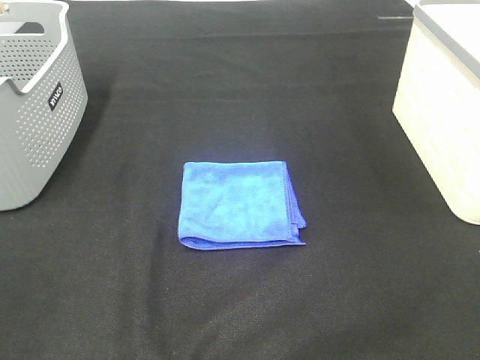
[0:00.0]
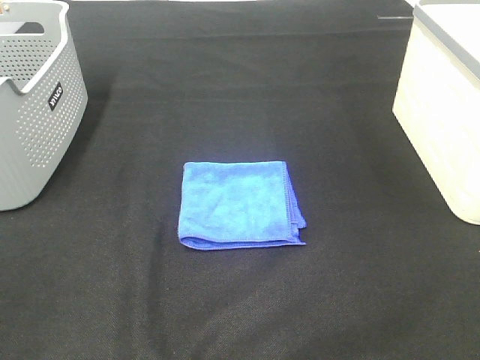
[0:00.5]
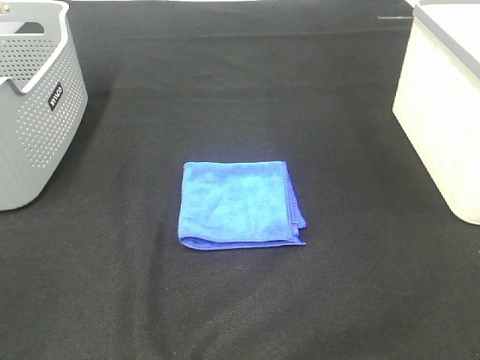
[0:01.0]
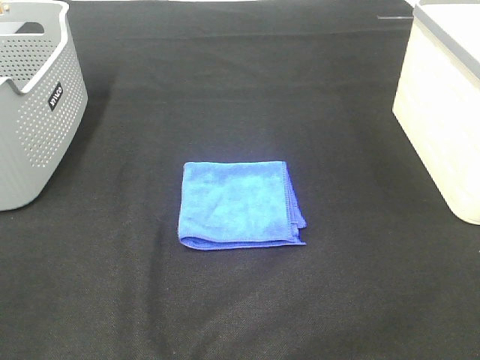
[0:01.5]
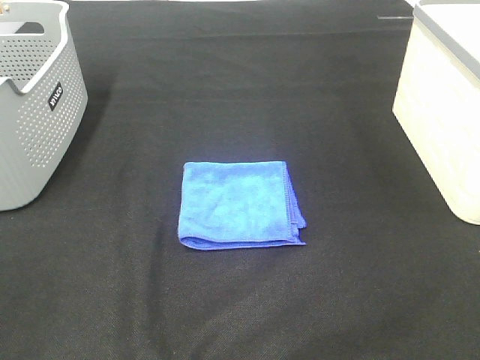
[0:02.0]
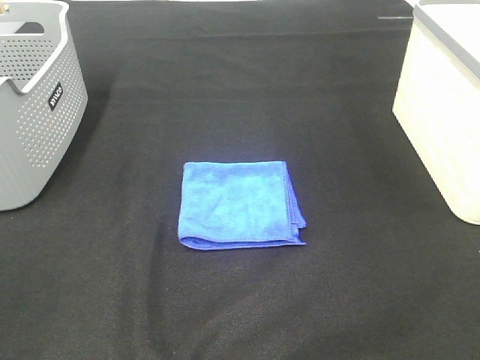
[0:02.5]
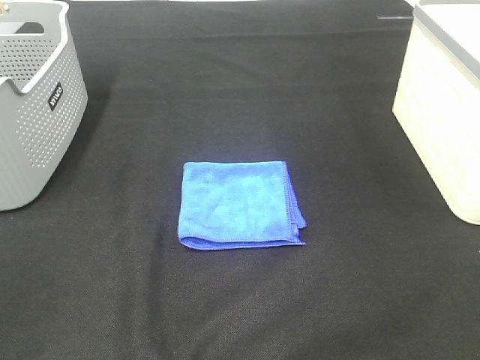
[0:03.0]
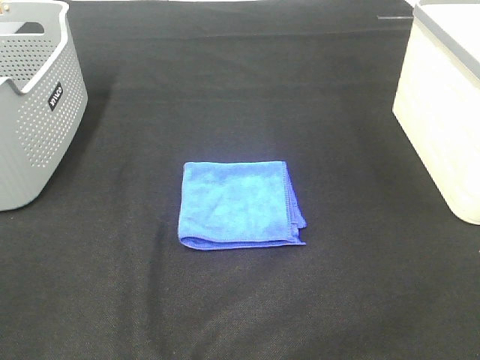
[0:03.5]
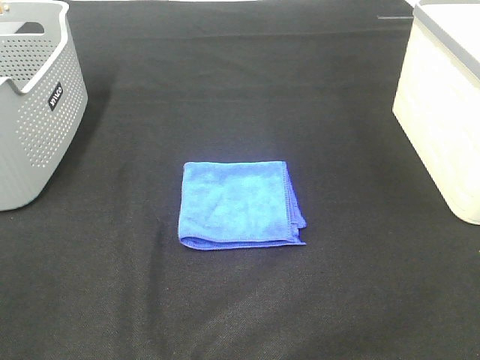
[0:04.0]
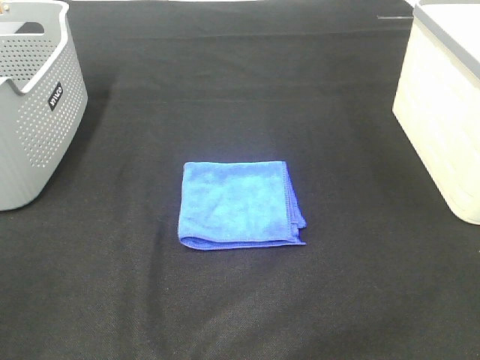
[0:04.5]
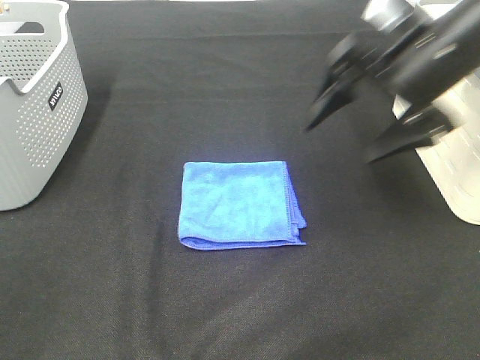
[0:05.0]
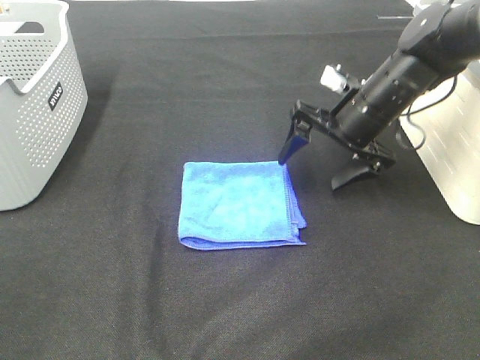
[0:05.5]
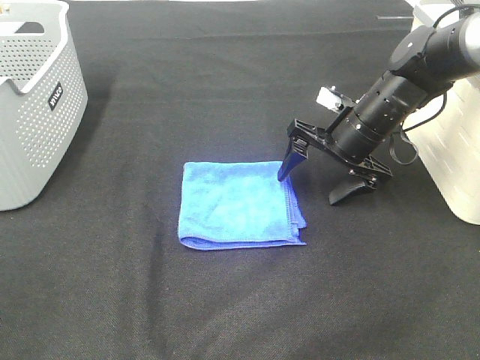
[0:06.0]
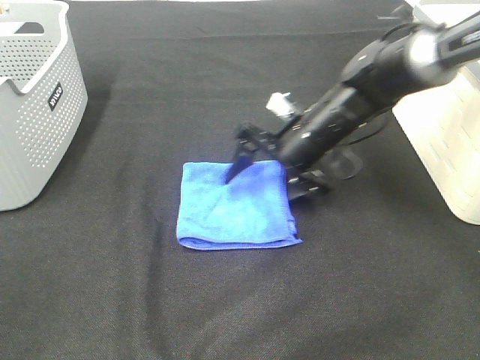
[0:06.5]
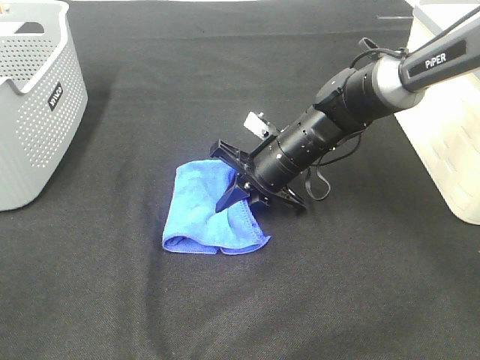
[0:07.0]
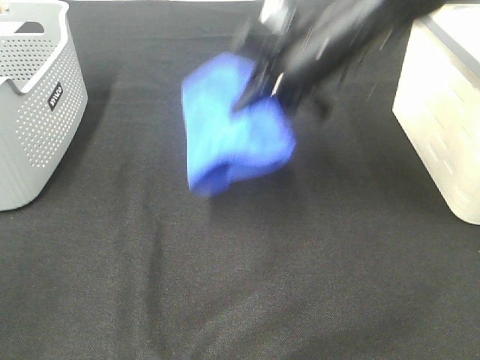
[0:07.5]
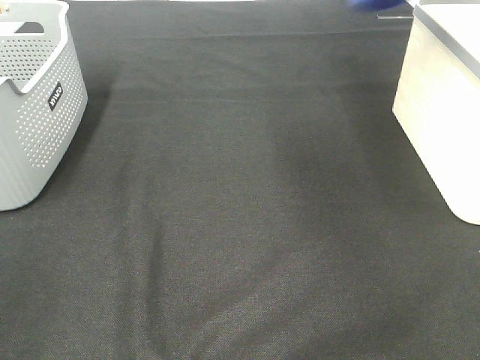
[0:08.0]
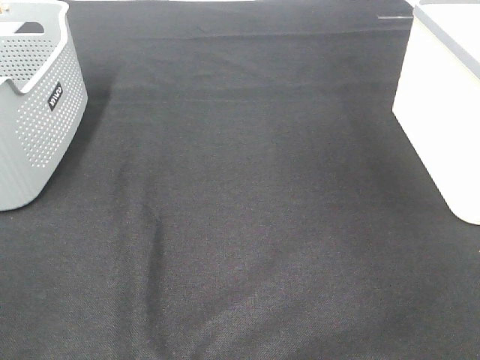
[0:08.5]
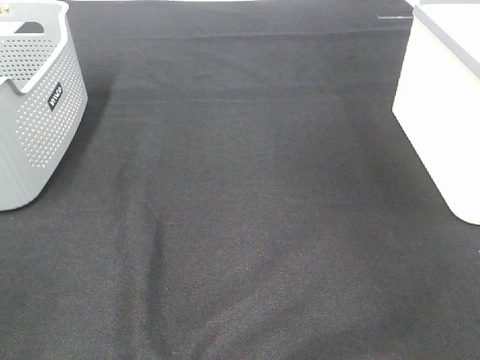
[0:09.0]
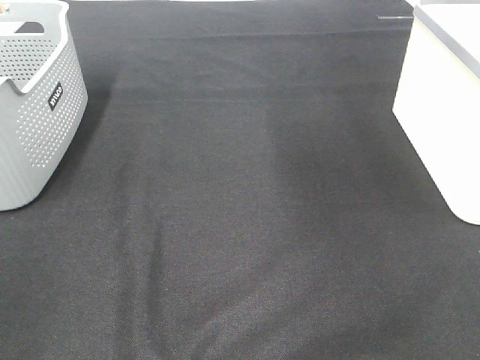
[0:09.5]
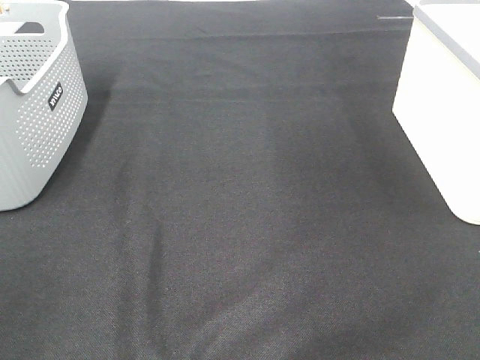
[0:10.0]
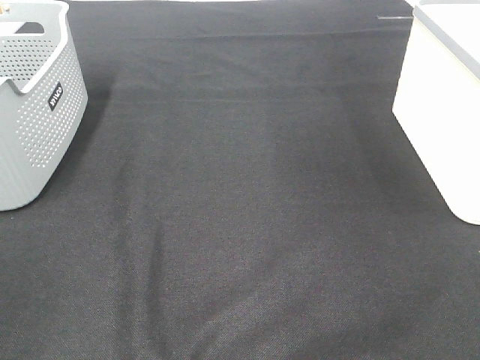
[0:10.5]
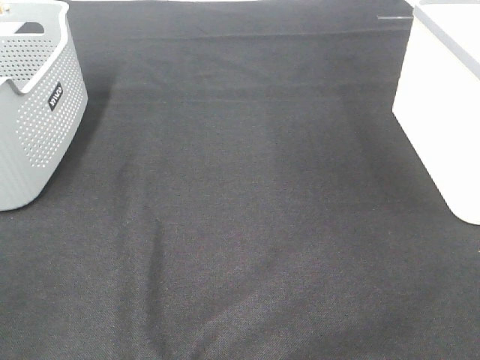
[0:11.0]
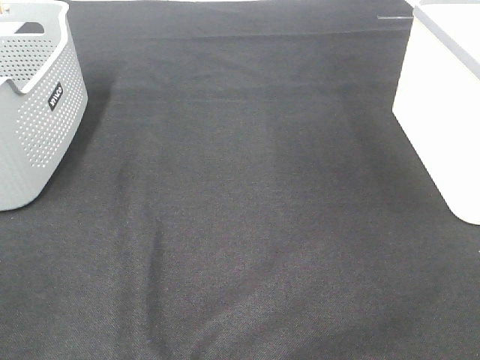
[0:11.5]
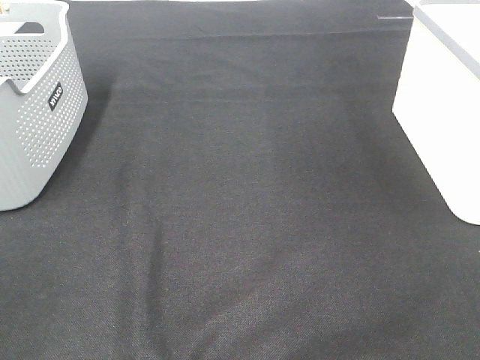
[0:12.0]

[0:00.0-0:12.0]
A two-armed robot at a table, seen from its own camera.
Step, 0:00.0 to 0:06.5: Right hand: grab the folded blue towel.
Step, 0:07.0 to 0:08.5: Right hand: place the blue towel in right basket.
0:00.0 to 0:02.0: Both grippers stay put.
0:04.0 to 0:06.0: The right gripper goes approximately 40 cm forward and downward.
0:06.0 to 0:08.0: The right gripper travels upward and to the right by about 35 cm, and closes up.
0:08.0 to 0:10.0: The right gripper goes about 25 cm backward, and opens up.

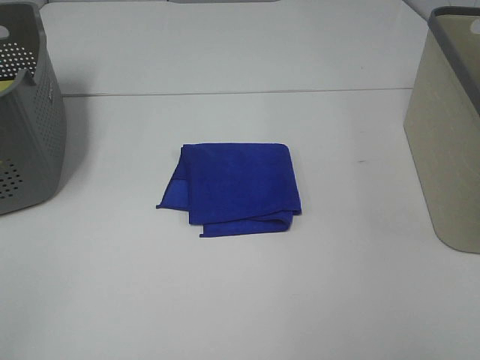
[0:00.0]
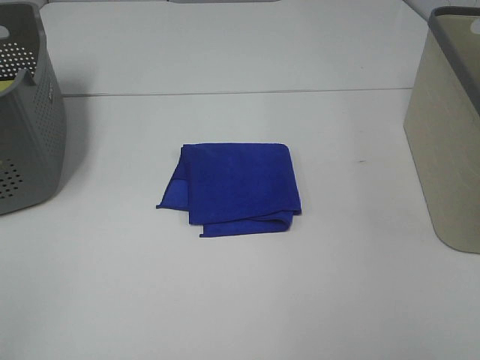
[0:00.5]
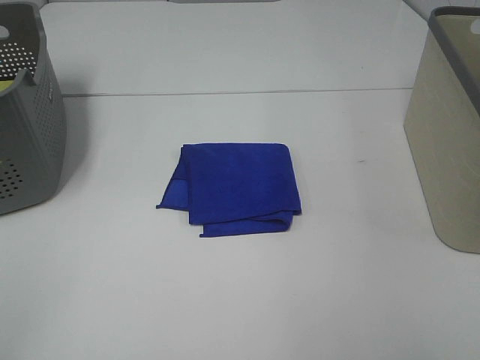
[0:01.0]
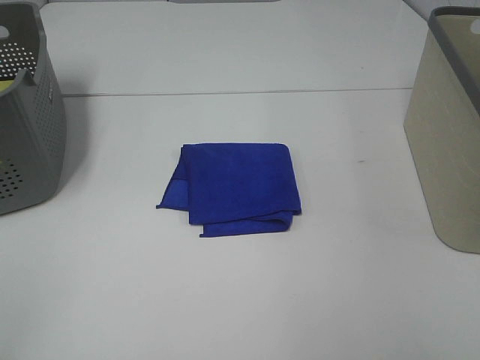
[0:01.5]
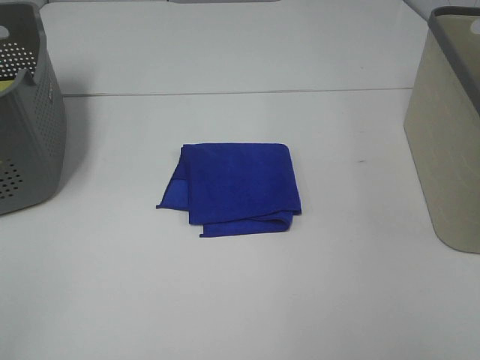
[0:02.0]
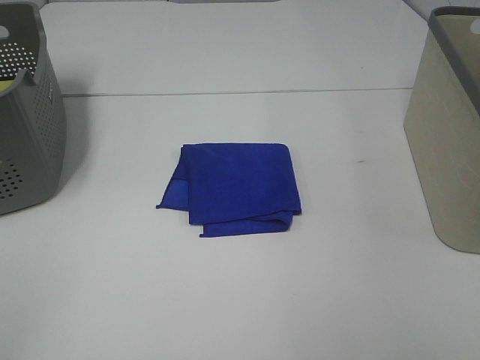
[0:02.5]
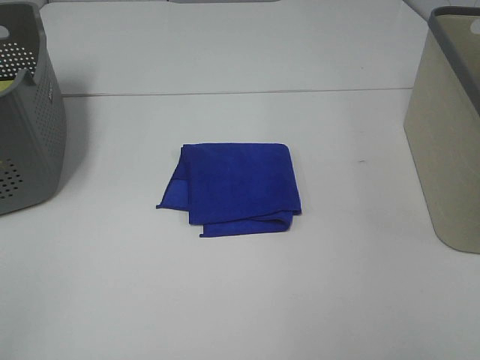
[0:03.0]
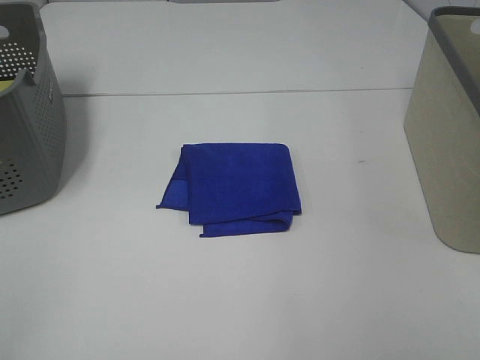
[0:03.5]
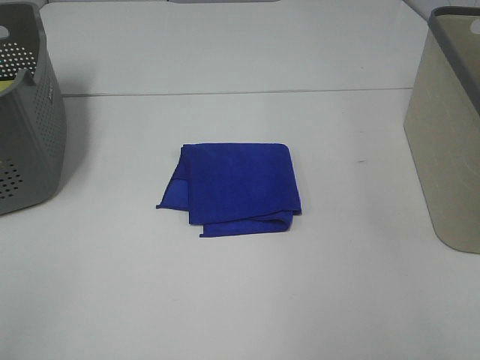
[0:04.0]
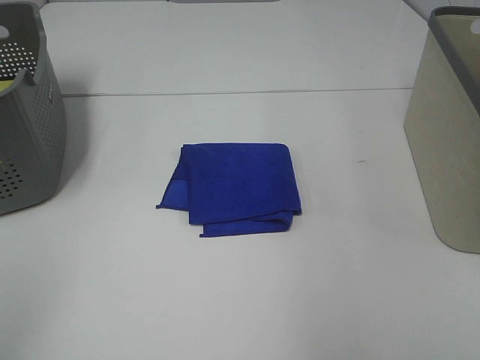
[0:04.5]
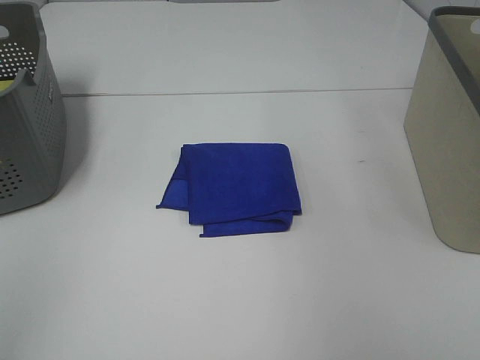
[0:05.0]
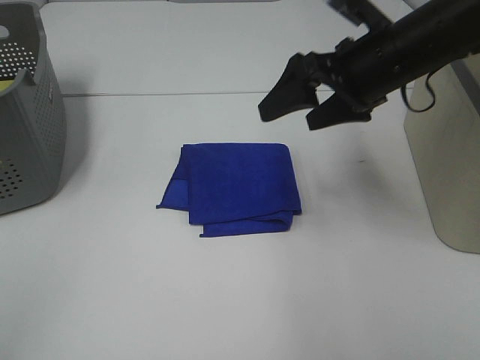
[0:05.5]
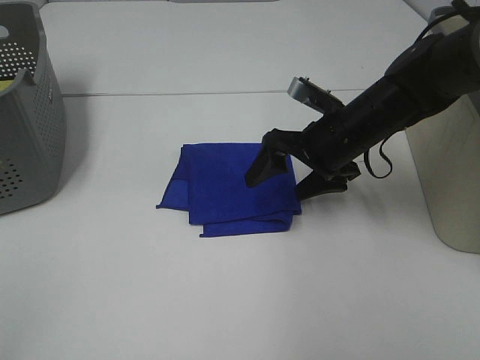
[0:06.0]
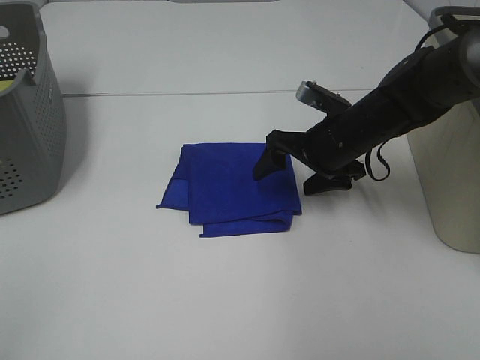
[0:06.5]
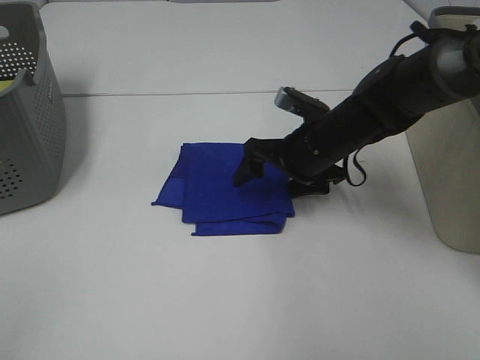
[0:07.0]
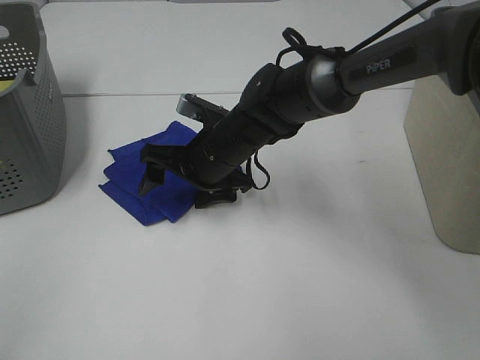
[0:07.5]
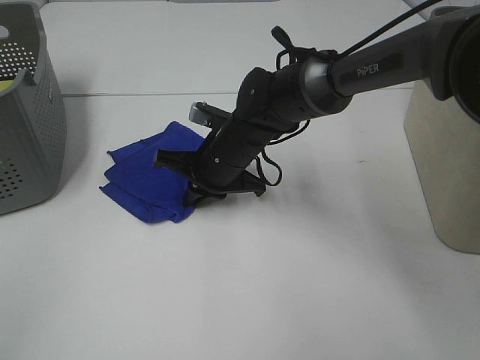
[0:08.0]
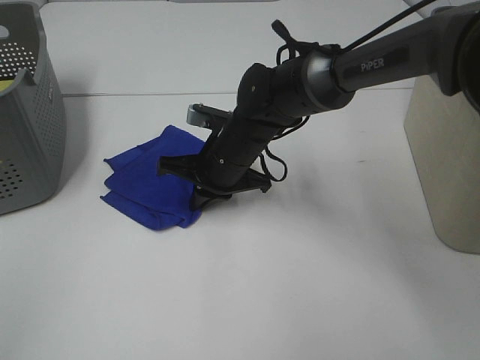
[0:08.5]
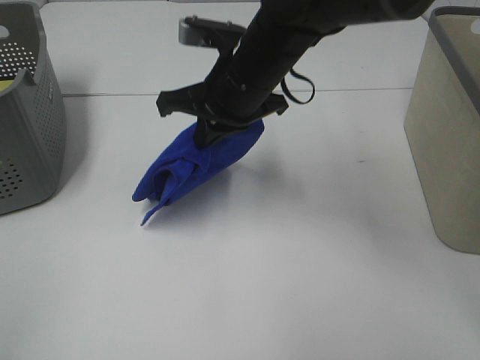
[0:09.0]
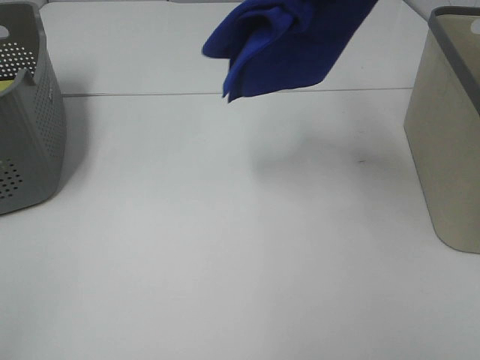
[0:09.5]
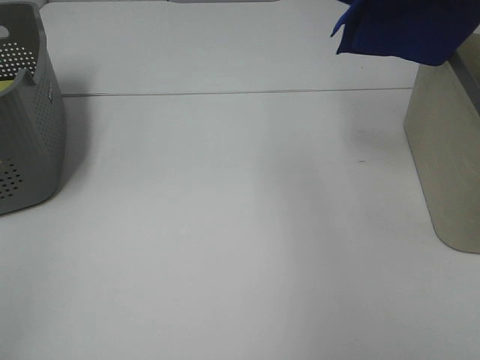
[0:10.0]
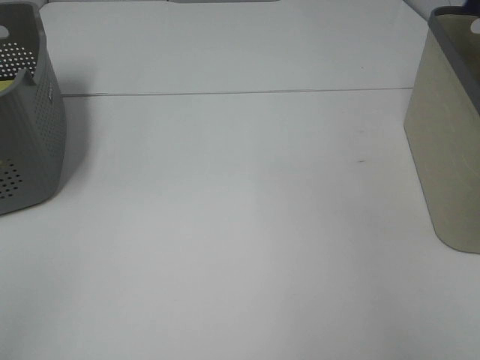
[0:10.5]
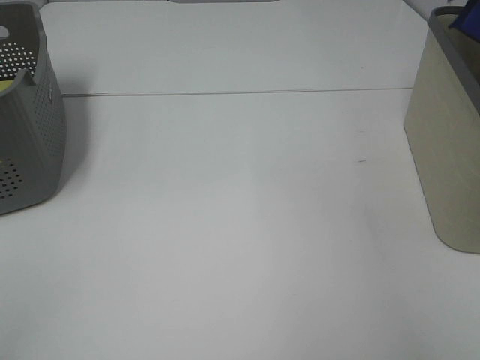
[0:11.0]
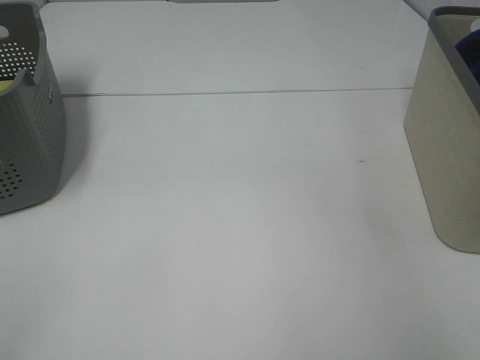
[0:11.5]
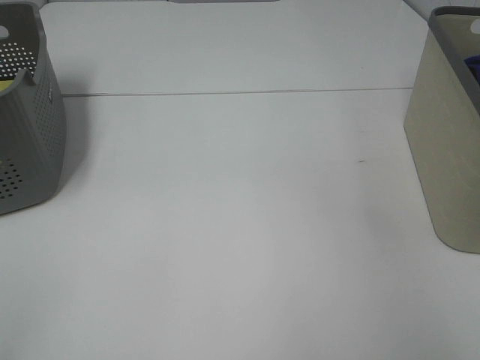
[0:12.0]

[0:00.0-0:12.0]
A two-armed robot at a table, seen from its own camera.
Step, 0:00.0 to 0:08.0: Right hand: grab the folded blue towel.
0:00.0 to 0:02.0: Both grippers stay put.
0:04.0 to 0:06.0: The right gripper heads forward, downward and to the left, covering roughly 40 cm.
0:06.0 to 0:08.0: The right gripper shifts roughly 15 cm to the left, and closes up.
0:08.0 to 0:10.0: The right gripper shifts roughly 40 cm upward and to the right.
0:10.0 to 0:12.0: The right gripper goes approximately 20 cm to the right and downward.

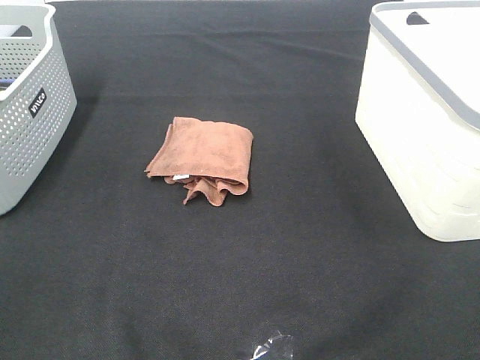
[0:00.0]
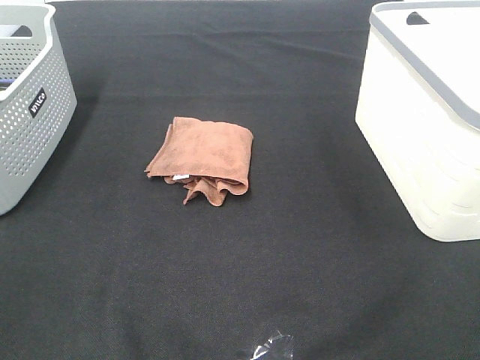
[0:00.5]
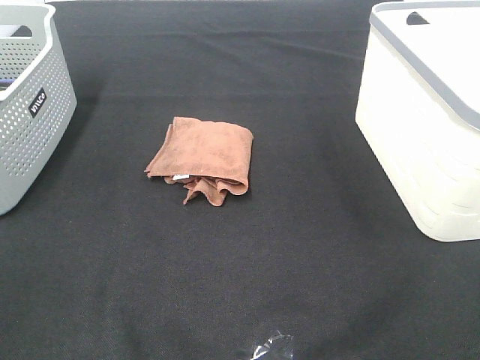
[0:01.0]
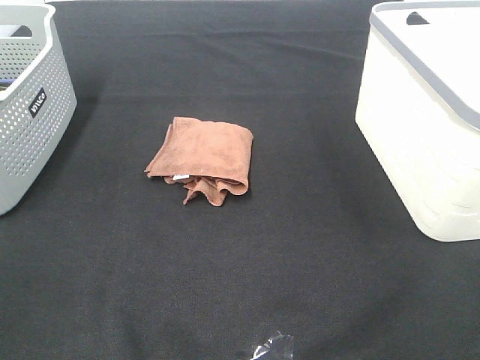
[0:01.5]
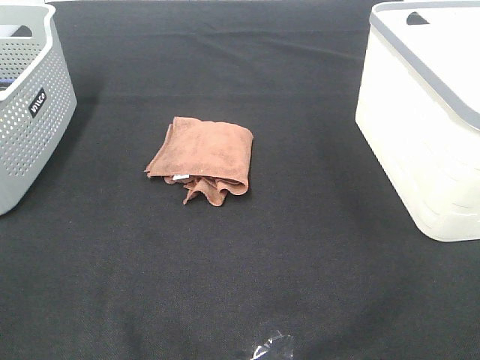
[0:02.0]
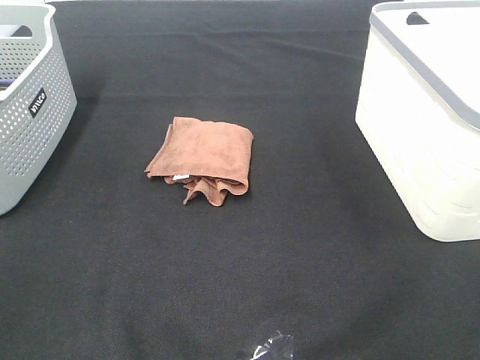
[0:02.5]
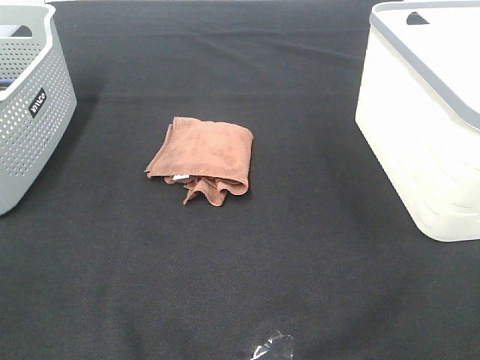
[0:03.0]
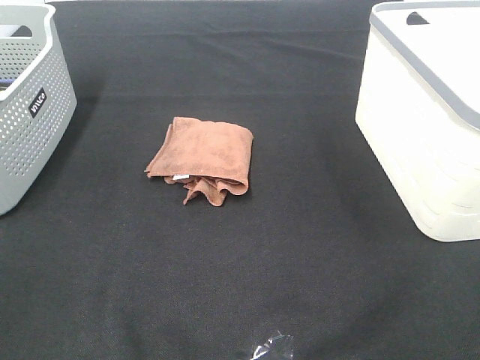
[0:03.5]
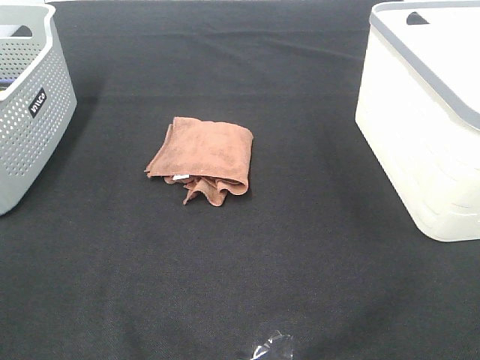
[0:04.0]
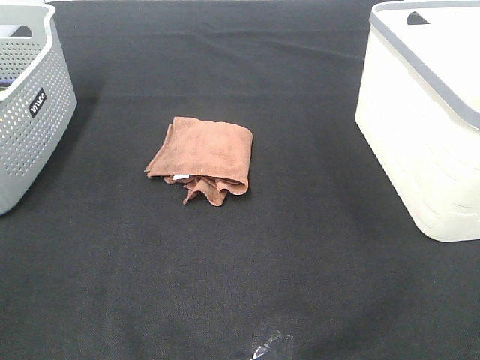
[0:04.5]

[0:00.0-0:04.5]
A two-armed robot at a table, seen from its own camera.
0:00.0 to 0:02.0: Both grippers stay about where they are.
